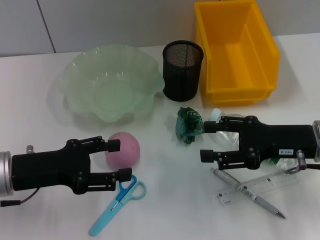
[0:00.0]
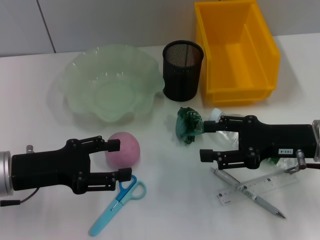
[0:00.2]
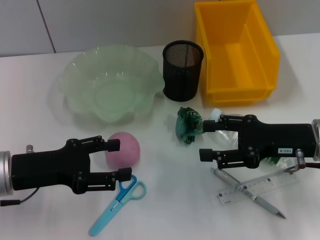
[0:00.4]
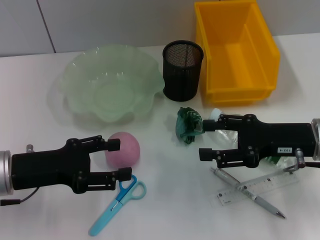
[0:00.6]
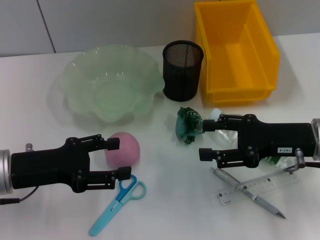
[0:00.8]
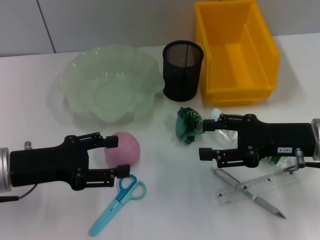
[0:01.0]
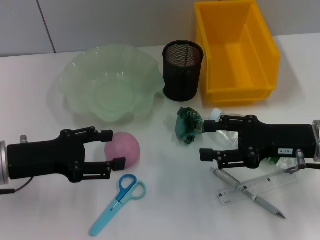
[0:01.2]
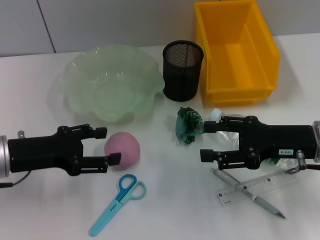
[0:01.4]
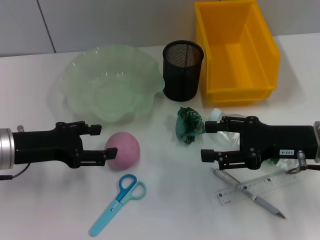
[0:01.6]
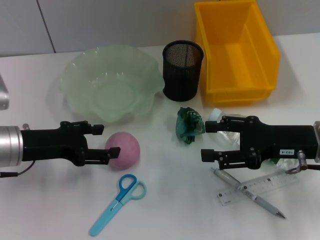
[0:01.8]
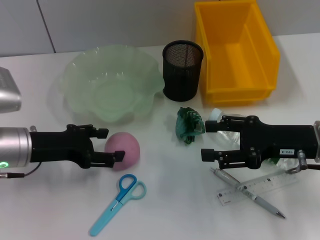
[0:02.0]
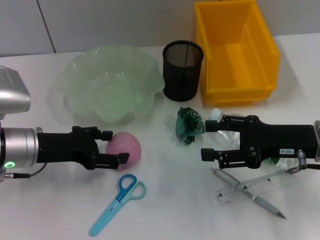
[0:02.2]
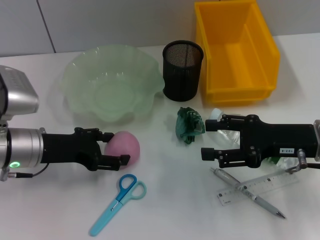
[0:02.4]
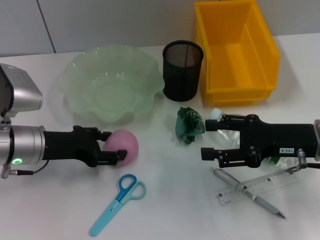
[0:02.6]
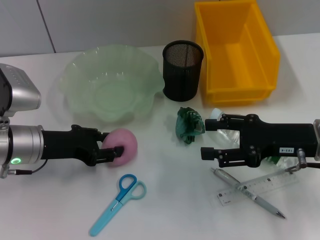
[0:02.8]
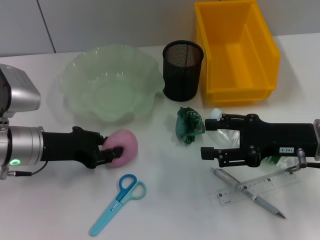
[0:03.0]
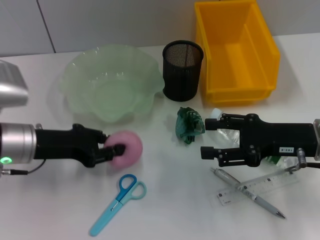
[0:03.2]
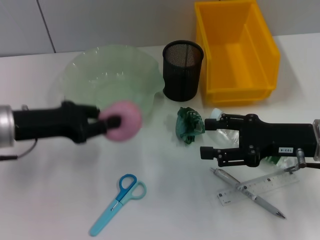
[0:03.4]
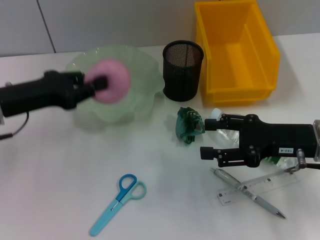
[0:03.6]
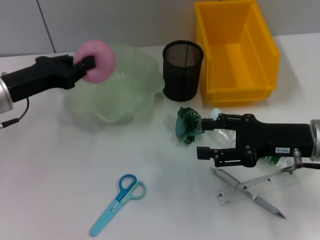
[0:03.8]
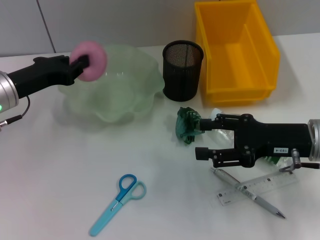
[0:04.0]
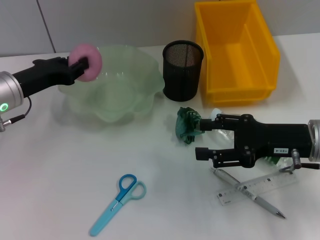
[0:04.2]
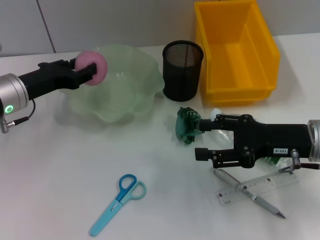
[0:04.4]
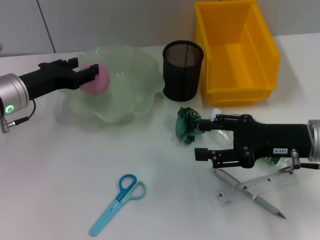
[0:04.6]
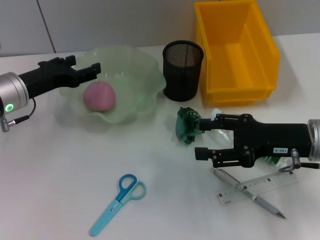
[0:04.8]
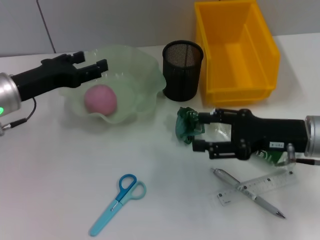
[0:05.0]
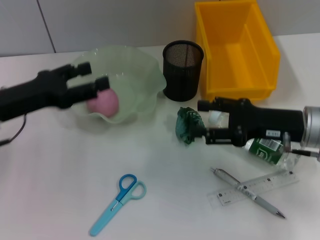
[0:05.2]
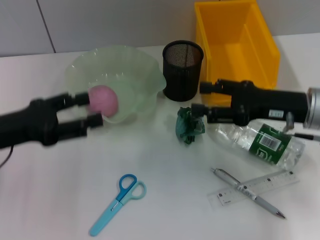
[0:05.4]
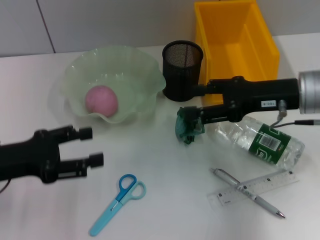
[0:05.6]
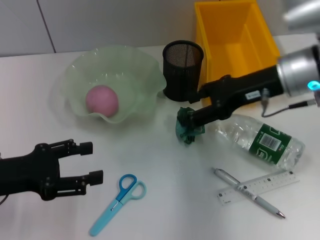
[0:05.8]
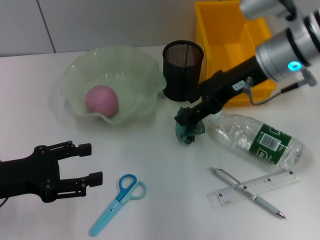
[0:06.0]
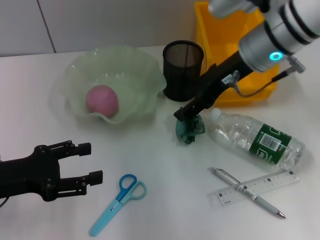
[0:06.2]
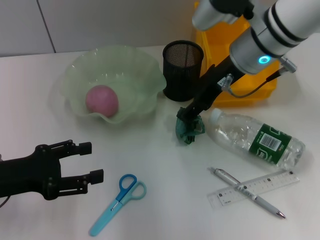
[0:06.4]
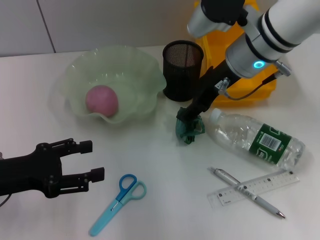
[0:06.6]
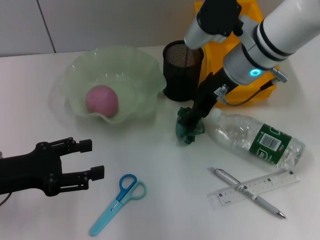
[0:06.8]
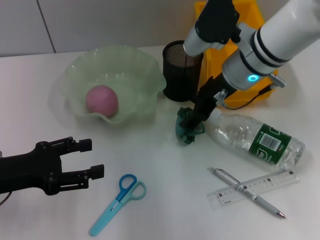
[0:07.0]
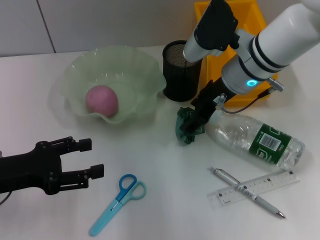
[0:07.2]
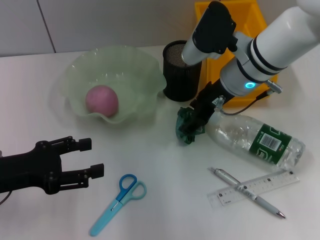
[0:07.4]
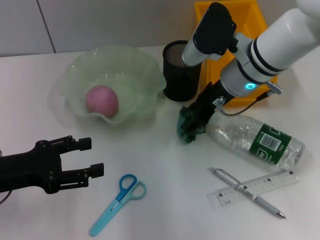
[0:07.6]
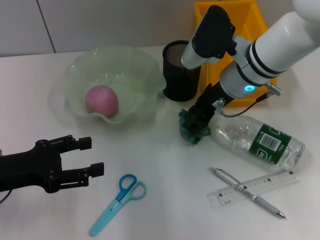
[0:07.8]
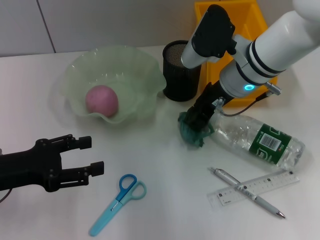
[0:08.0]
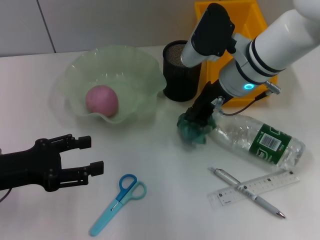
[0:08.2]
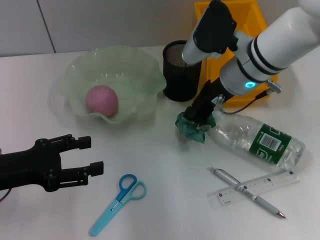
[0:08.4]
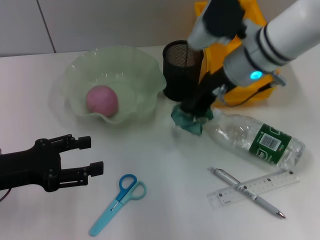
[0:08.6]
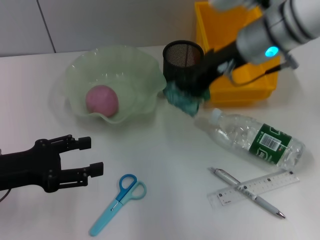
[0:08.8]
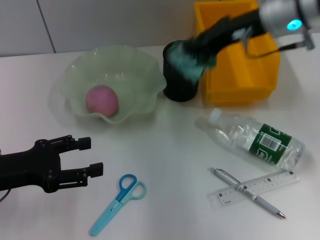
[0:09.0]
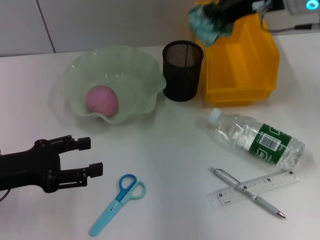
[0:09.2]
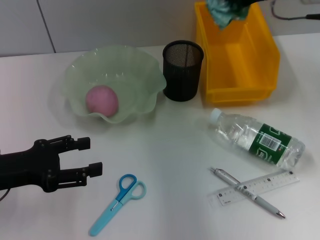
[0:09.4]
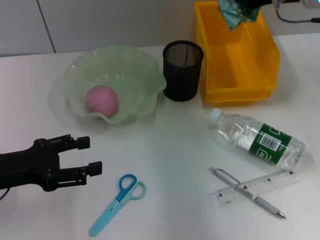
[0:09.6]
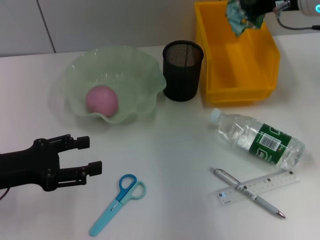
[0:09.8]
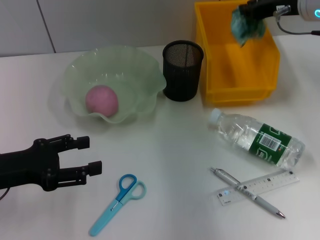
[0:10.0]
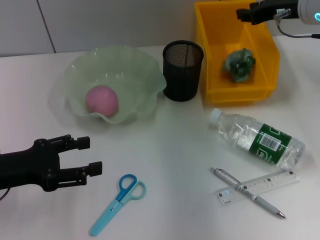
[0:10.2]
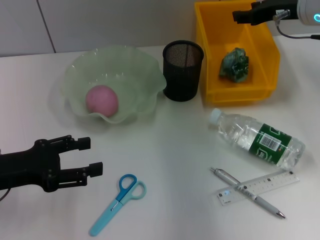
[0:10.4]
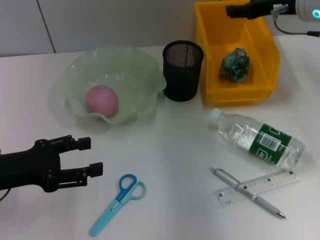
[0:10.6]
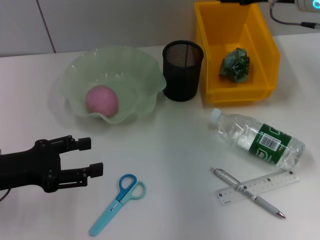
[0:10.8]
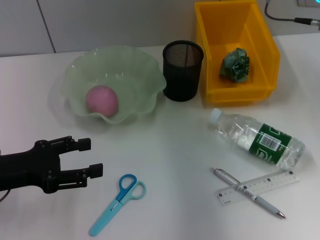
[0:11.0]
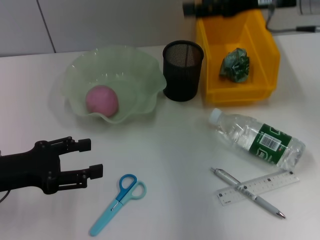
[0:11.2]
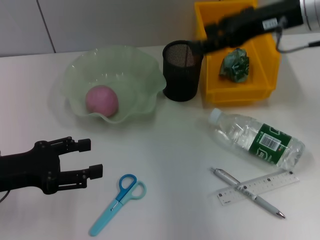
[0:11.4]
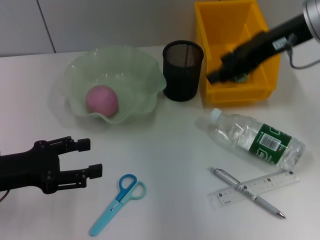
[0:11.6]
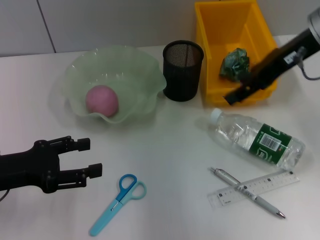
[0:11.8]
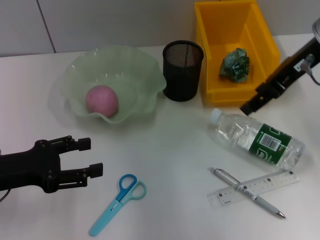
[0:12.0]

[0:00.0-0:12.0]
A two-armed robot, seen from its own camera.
Step, 0:00.0 to 0:02.6: Grab the peach with the left hand.
Step, 0:02.8 to 0:04.6: Place the peach into the fruit bowl with the left hand.
Step, 0:04.8 to 0:07.8: Grab the plastic with the right hand.
Step, 0:08.0 to 0:10.2: Place the plastic into the trash can with the right hand.
0:00.0 to 0:01.6: The grippers move only a little.
0:01.6 to 0:03.0: The left gripper closes its fingers.
0:03.0 to 0:04.4: The left gripper goes roughly 5 cm forward, and closes up.
0:04.4 to 0:06.0: The left gripper travels backward by approximately 15 cm, and opens its fingers. Meanwhile the right gripper heads upward, forward and to the left, covering about 15 cm.
0:06.0 to 0:07.6: The right gripper is displaced downward by approximately 5 cm.
0:07.6 to 0:09.0: The right gripper travels upward and to the right by approximately 10 cm, and closes its fingers.
0:09.0 to 0:10.4: The right gripper goes approximately 5 cm to the right, and opens.
0:10.4 to 0:12.0: The right gripper goes some 5 cm backward, and opens up.

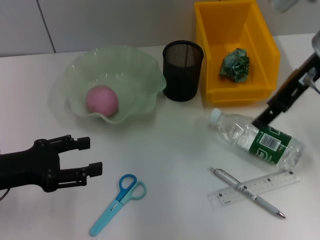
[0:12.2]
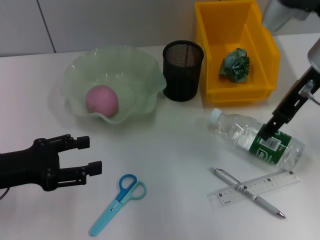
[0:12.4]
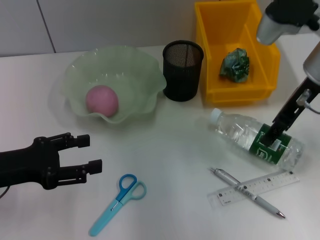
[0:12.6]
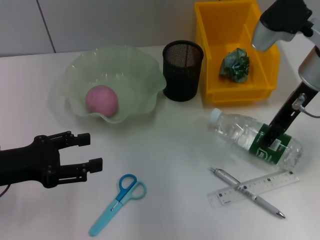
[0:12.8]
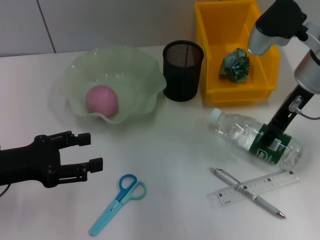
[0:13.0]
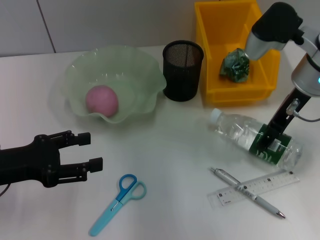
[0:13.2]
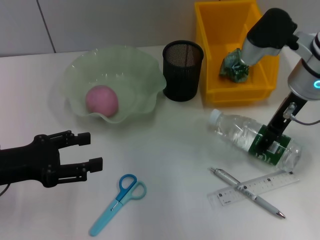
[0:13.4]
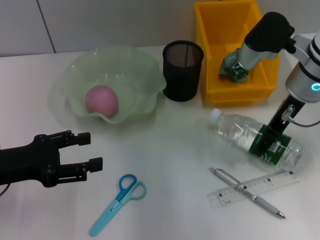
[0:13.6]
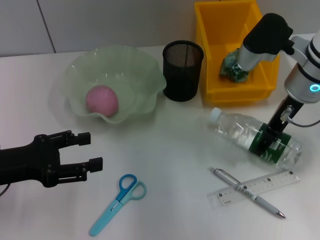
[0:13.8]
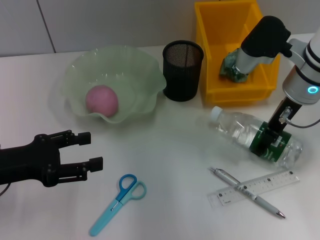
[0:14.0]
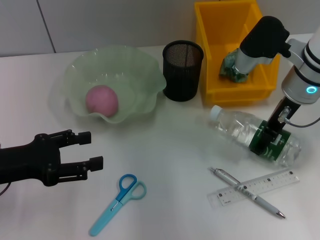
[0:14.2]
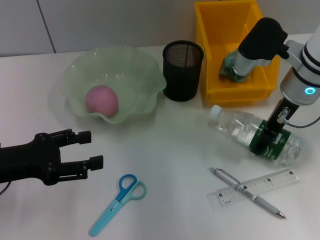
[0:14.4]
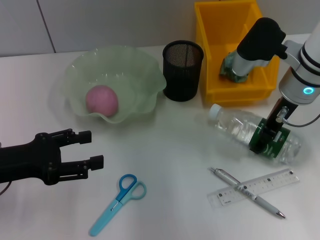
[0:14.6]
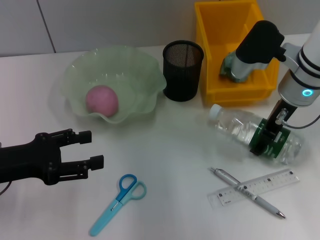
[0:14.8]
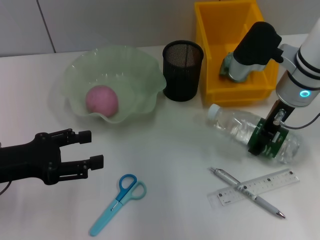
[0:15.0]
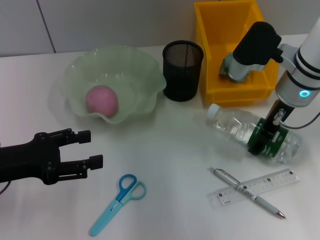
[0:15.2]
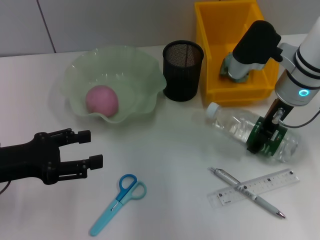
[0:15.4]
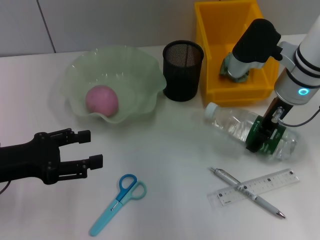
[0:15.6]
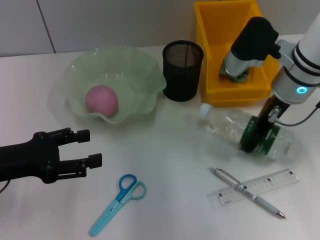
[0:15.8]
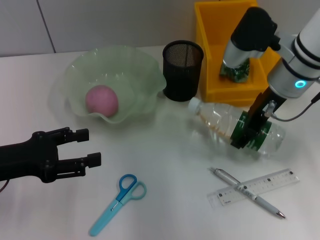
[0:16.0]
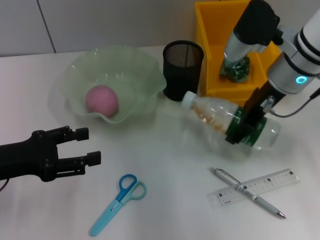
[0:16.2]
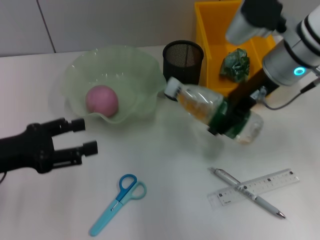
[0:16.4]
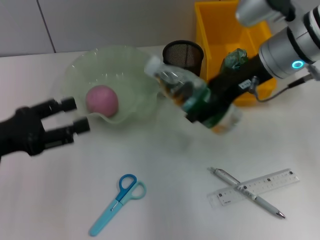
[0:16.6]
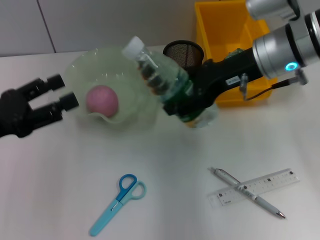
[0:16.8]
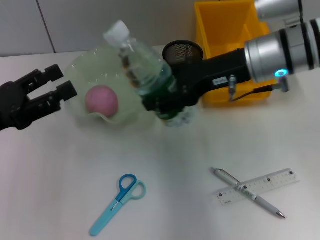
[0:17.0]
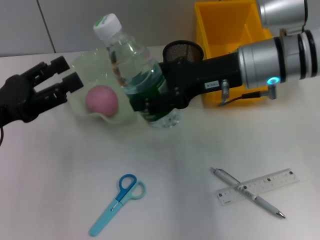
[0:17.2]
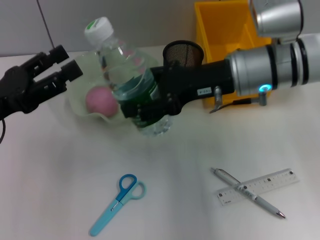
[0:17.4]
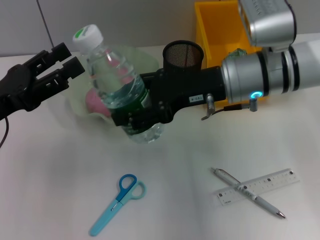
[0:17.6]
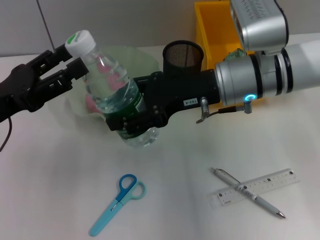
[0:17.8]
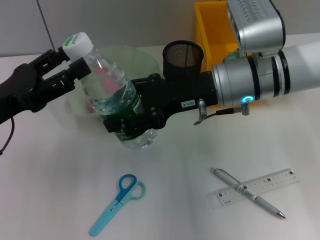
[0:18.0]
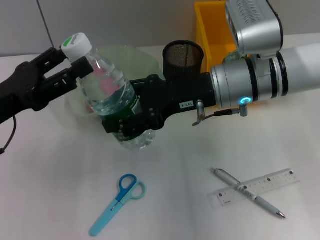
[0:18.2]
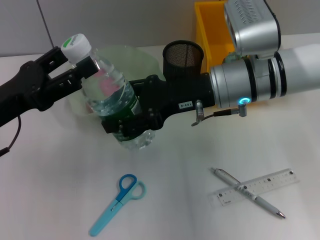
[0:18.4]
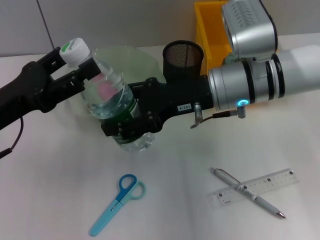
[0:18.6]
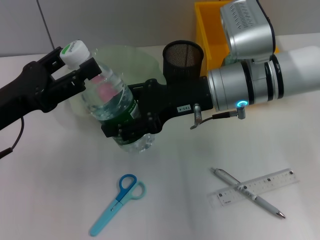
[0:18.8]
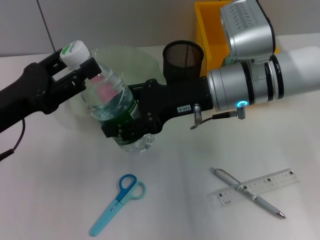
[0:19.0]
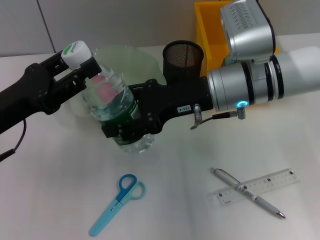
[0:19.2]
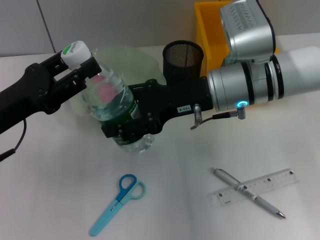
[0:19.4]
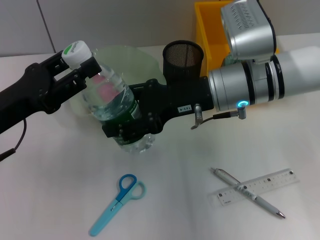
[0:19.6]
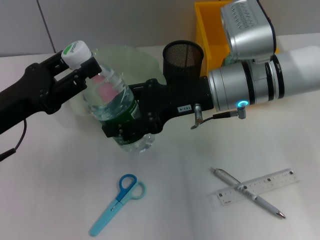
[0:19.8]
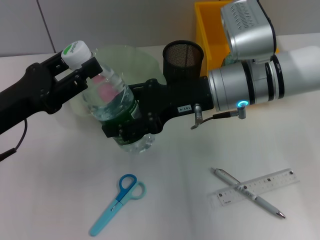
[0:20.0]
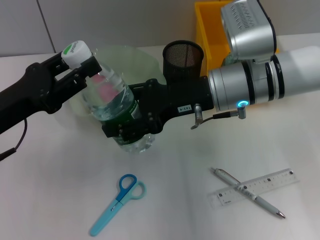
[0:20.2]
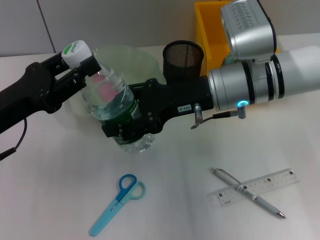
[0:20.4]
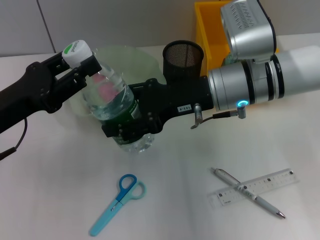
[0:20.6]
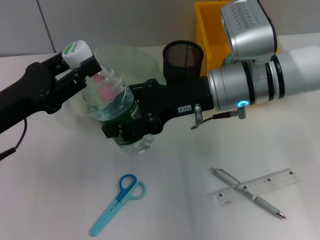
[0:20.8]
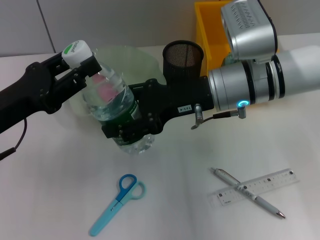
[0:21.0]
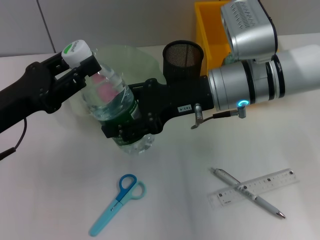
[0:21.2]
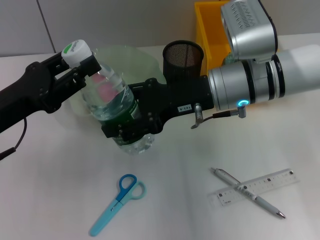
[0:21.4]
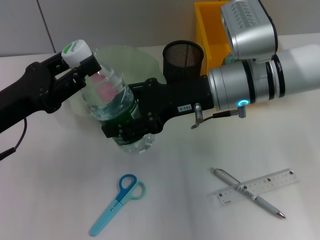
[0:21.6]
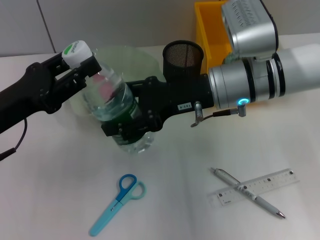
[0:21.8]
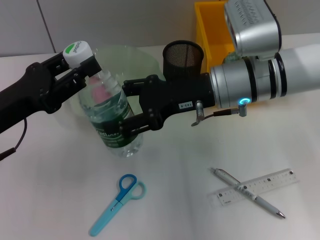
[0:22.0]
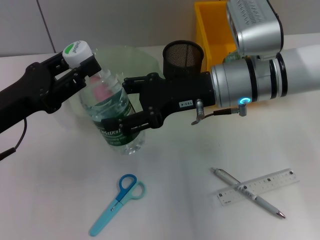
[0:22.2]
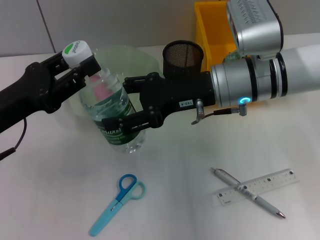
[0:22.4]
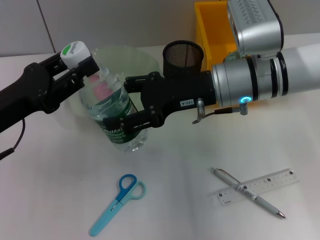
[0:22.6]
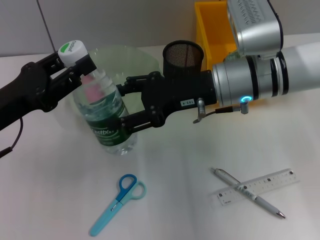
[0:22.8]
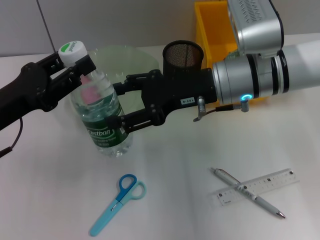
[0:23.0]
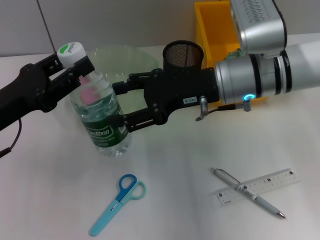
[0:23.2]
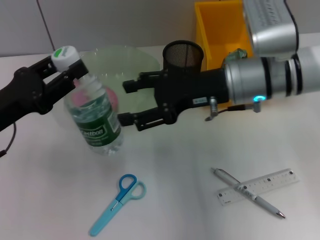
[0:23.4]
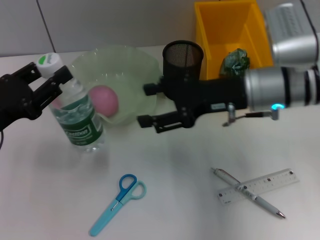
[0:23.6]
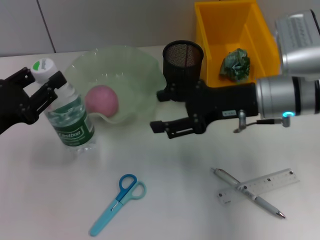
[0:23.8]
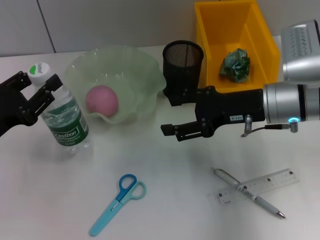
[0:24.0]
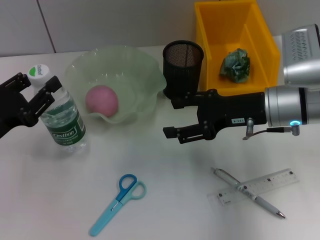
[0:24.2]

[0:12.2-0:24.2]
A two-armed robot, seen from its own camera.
Step, 0:12.2 to 0:14.6: Grab the water bottle with the right hand.
Step, 0:14.8 to 0:23.2: Pass the water bottle from the right hand to the left hand.
0:12.2 to 0:13.8: The right gripper shifts some 5 cm downward.
0:13.8 to 0:15.2: The grippers make only small movements.
0:15.2 to 0:16.6: The right gripper shifts approximately 5 cm upward.
0:16.6 to 0:18.2: The right gripper travels to the left by roughly 5 cm.
0:18.2 to 0:22.6: Both grippers stay put.
0:22.6 to 0:24.2: The right gripper is displaced to the right by roughly 5 cm; the left gripper ends up roughly 5 cm from where it was.
